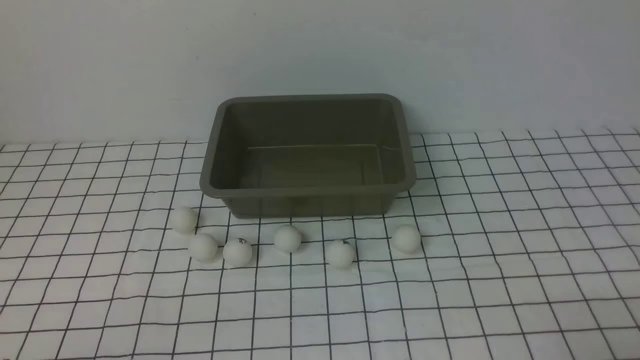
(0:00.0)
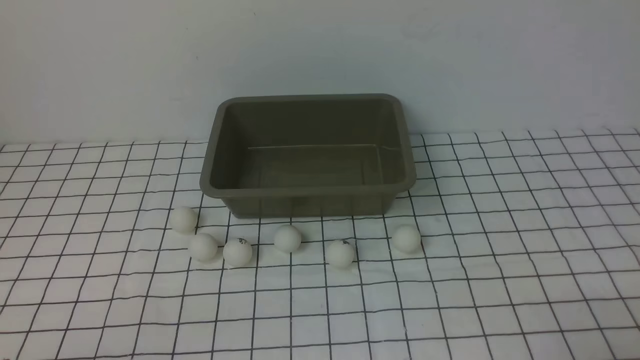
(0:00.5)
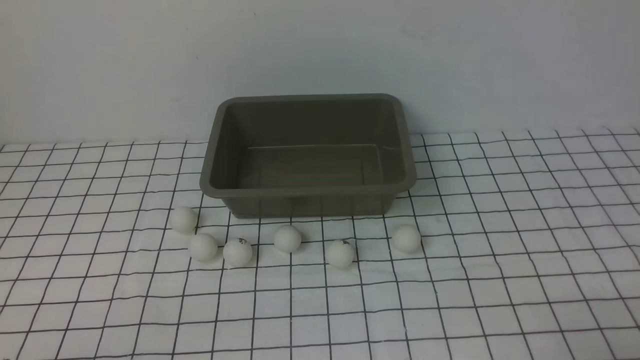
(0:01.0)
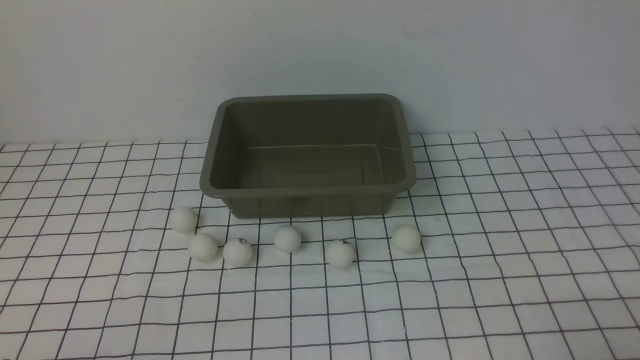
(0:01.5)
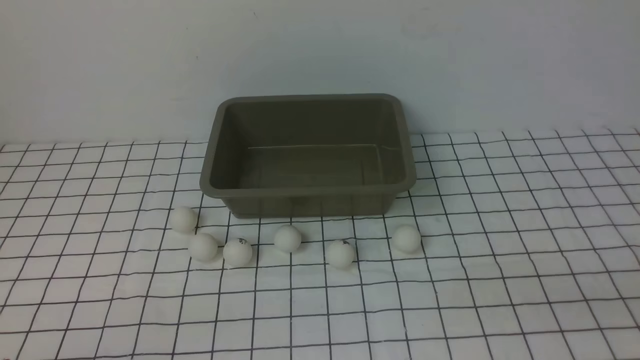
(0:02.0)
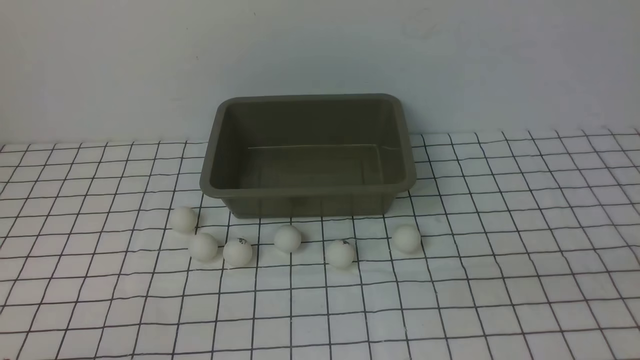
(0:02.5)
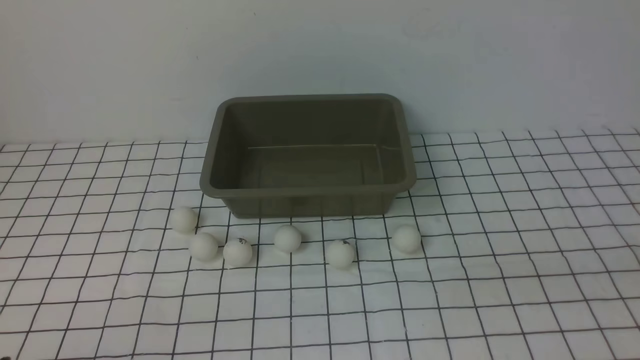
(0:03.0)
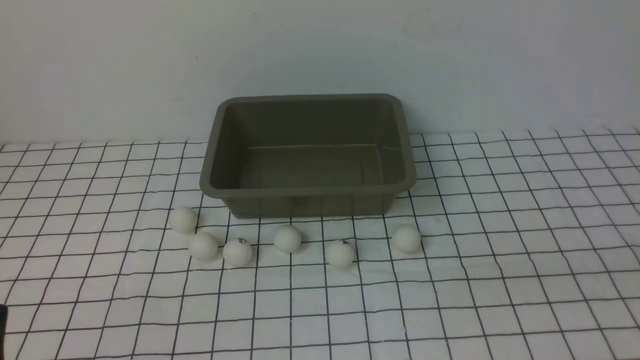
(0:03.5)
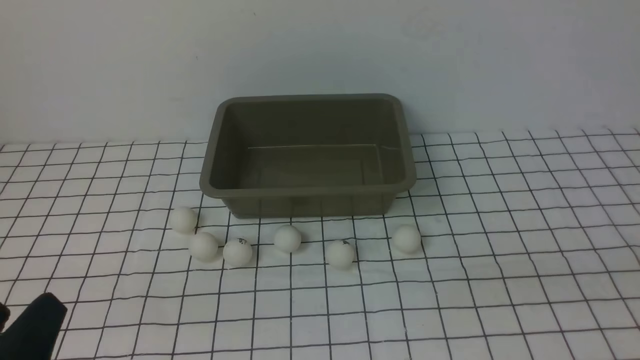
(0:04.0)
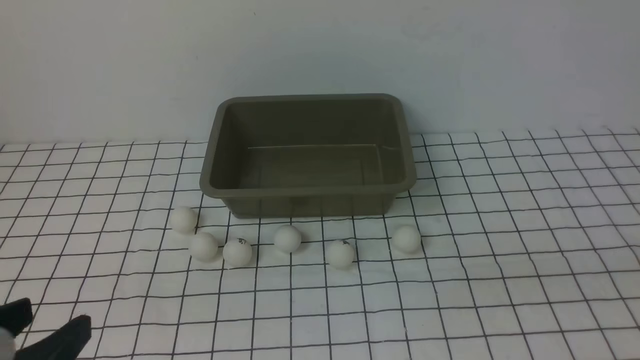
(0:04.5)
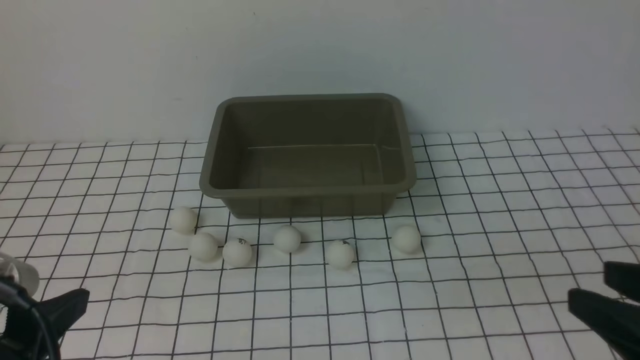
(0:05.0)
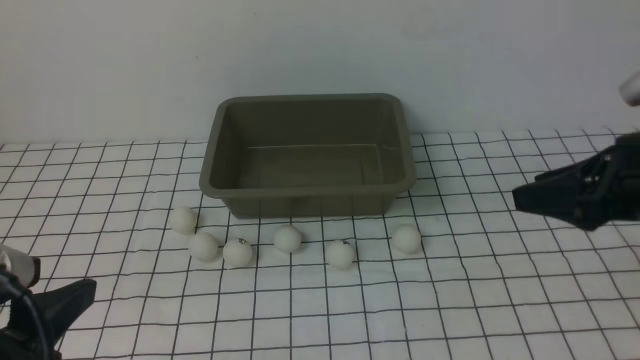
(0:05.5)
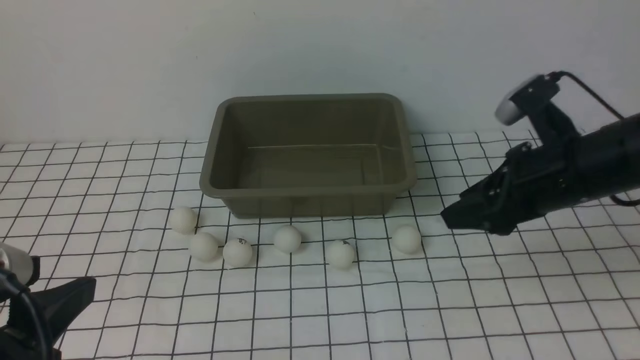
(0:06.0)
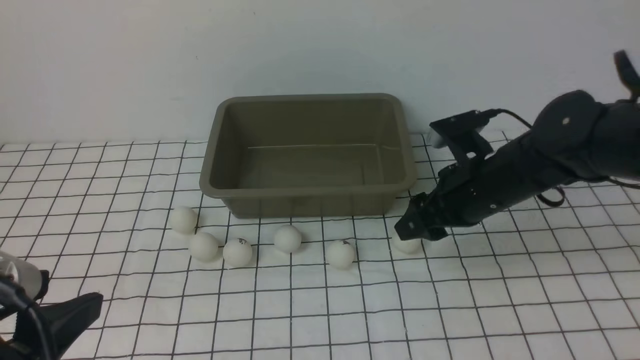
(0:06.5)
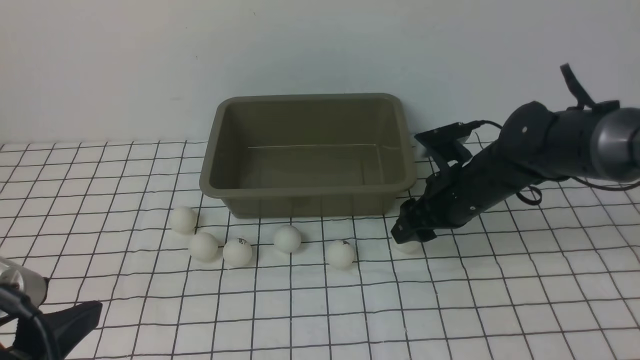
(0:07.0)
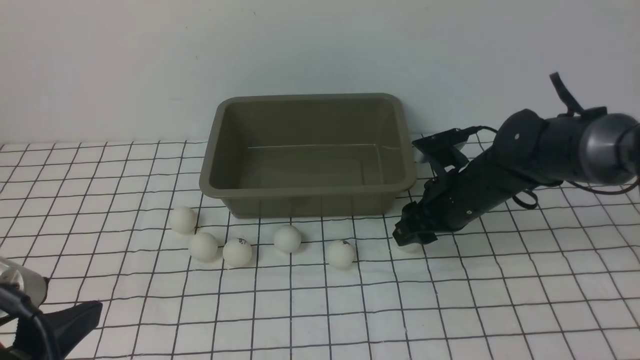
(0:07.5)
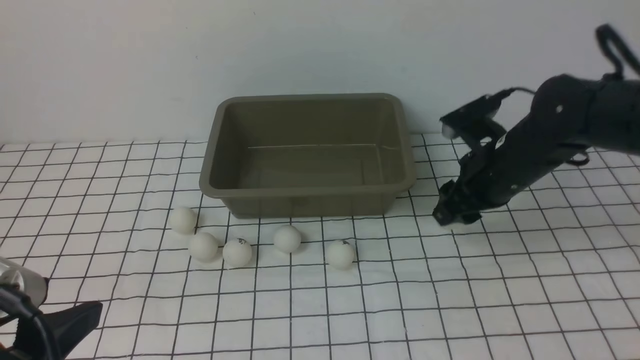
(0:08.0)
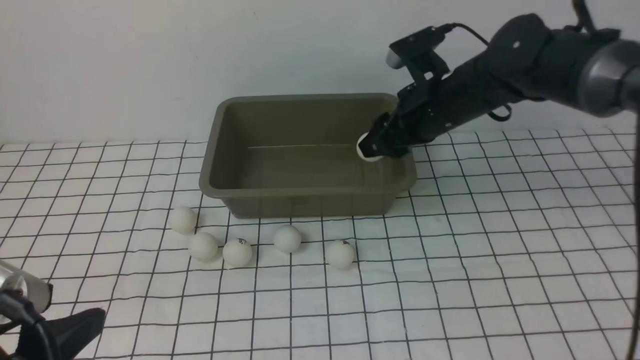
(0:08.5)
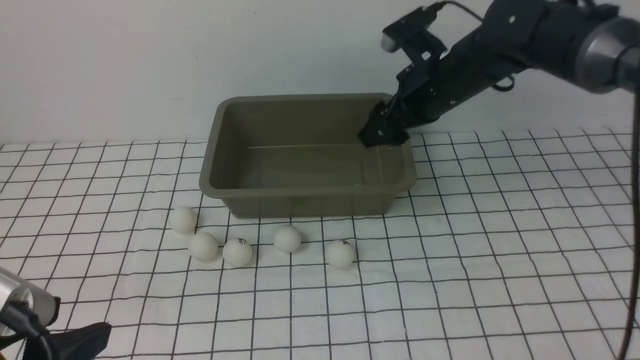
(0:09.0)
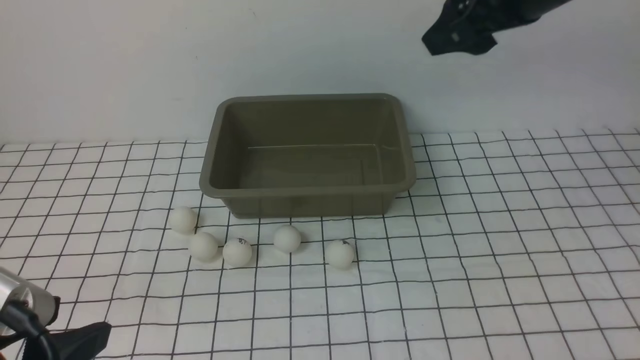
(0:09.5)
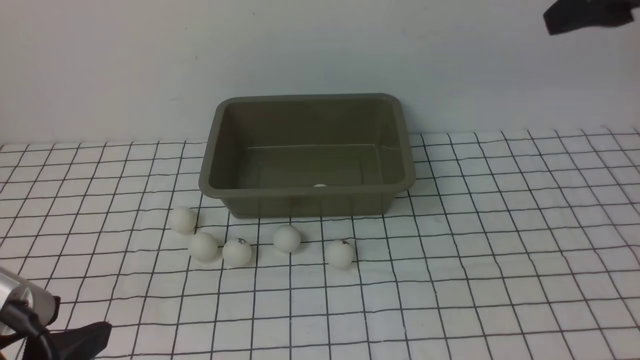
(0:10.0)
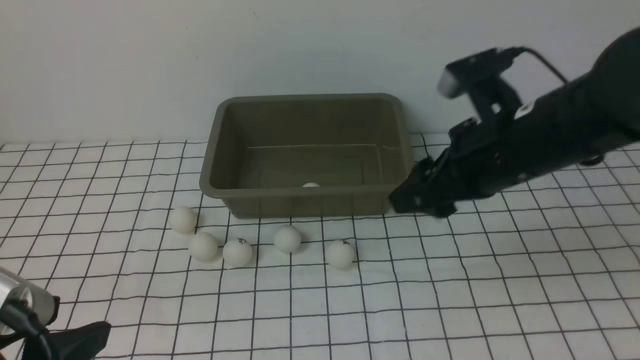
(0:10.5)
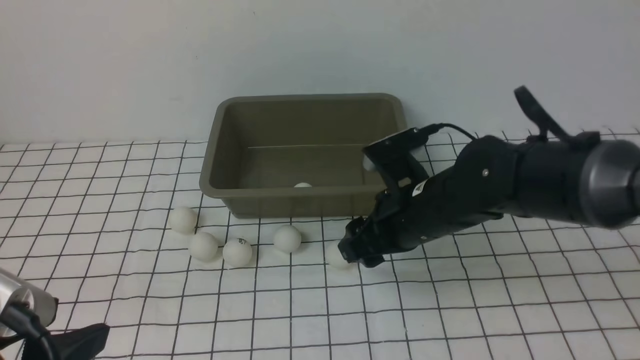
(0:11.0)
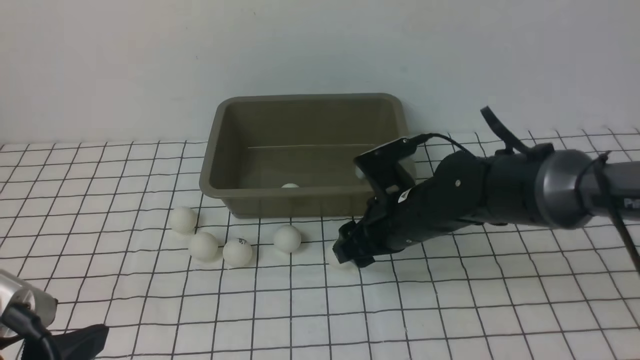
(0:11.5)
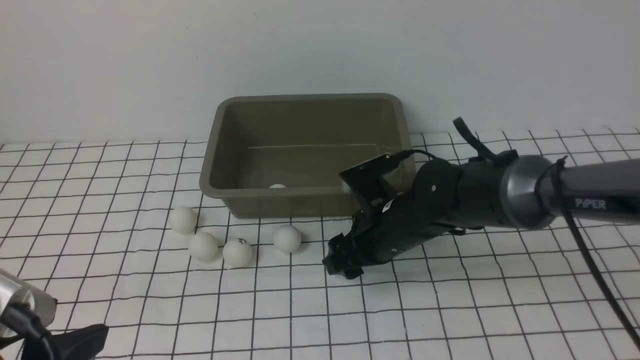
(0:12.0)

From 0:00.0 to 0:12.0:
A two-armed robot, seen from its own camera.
Step, from 0:00.0 to 0:08.0: use the right arm to clamp the table tennis ball closest to it.
Step, from 0:08.5 to 0:09.0: use the right arm to put the table tennis ball into the box.
From 0:02.0 to 0:04.0: The left gripper travels upward by about 5 cm.
From 0:04.0 to 0:06.0: The left gripper shifts about 5 cm upward, while the right gripper travels forward by roughly 25 cm.
From 0:06.0 to 0:08.0: The right gripper heads downward, forward and to the left, covering approximately 10 cm, and opens and closes again.
From 0:08.0 to 0:10.0: The right gripper moves upward, approximately 20 cm, and opens its fingers.
From 0:10.0 to 0:12.0: The right gripper travels downward and to the left by some 30 cm.

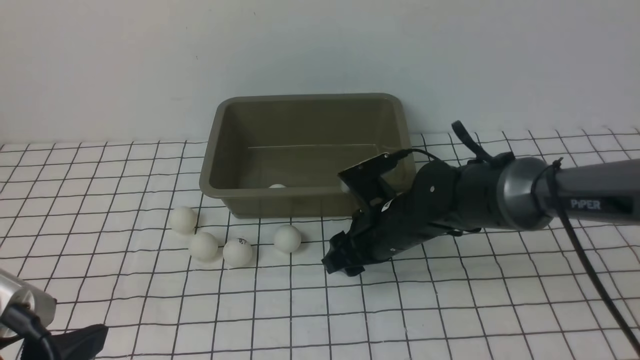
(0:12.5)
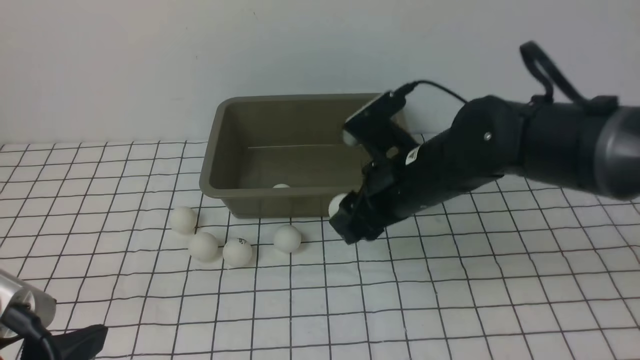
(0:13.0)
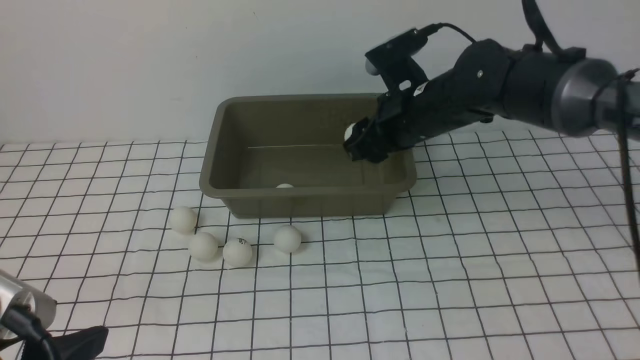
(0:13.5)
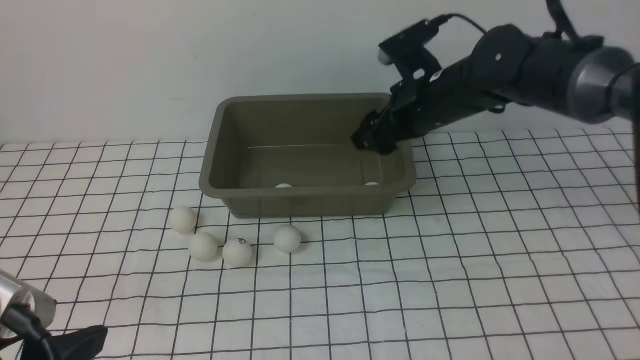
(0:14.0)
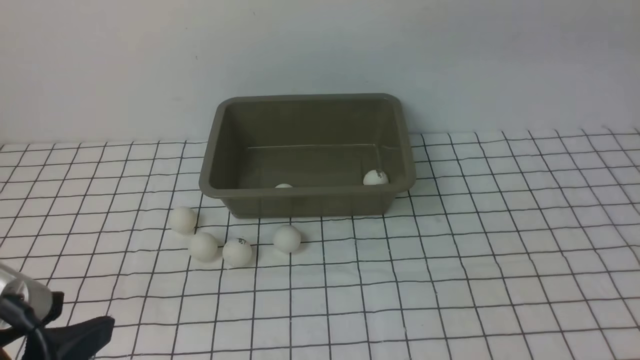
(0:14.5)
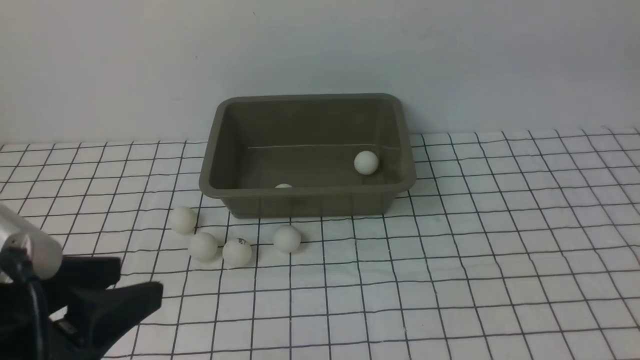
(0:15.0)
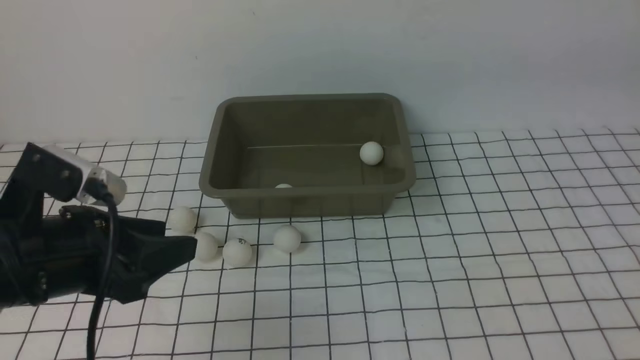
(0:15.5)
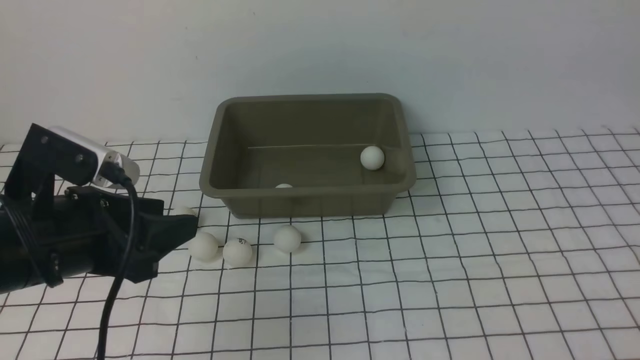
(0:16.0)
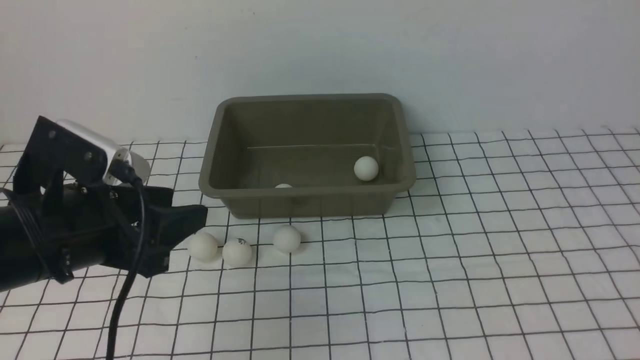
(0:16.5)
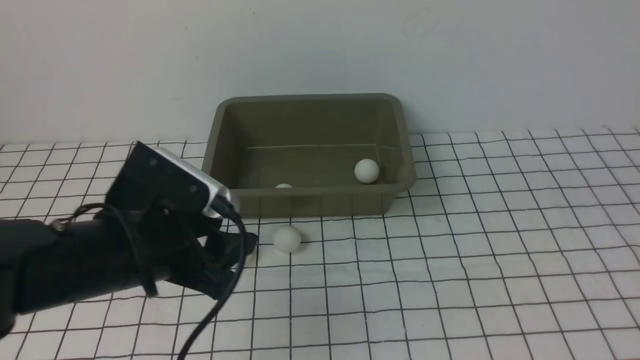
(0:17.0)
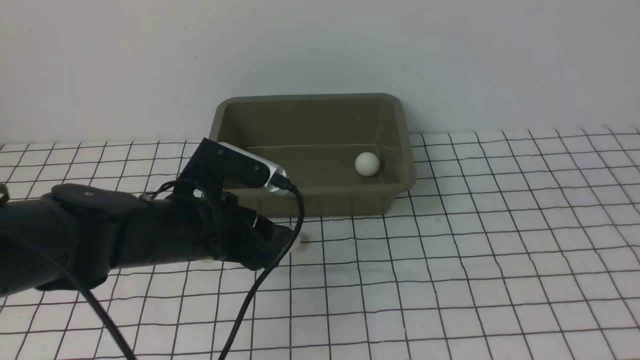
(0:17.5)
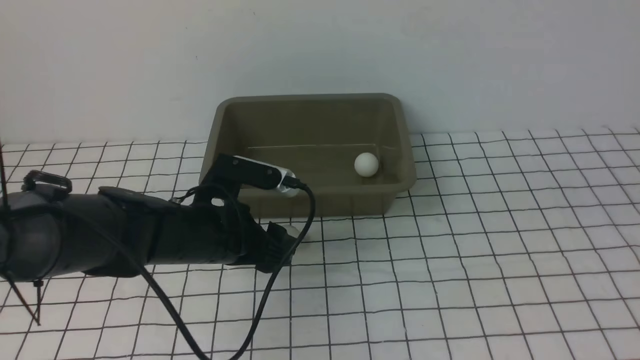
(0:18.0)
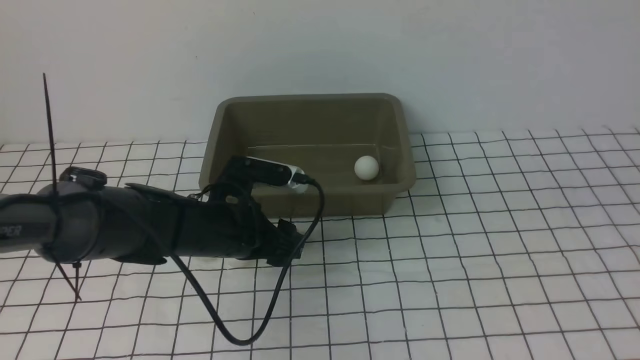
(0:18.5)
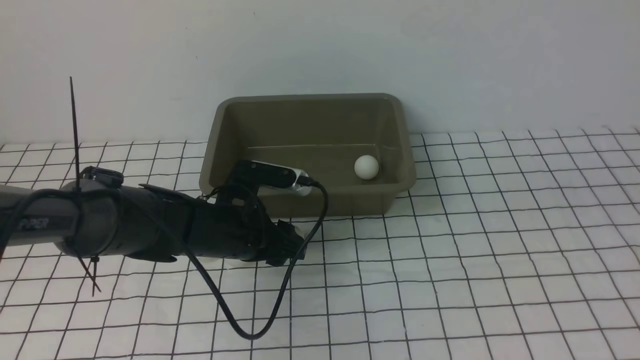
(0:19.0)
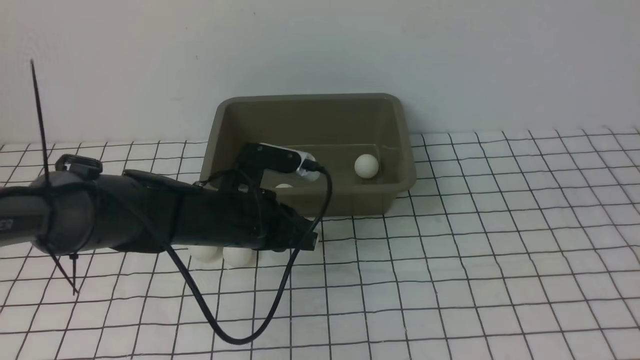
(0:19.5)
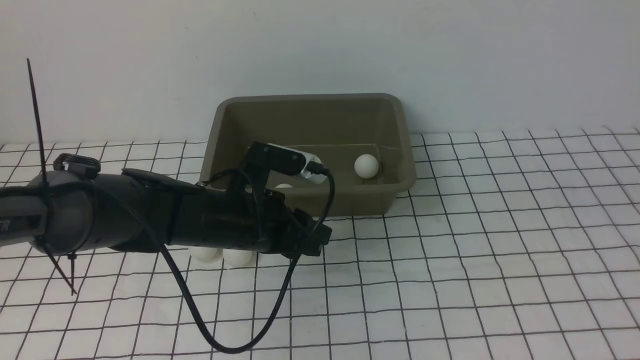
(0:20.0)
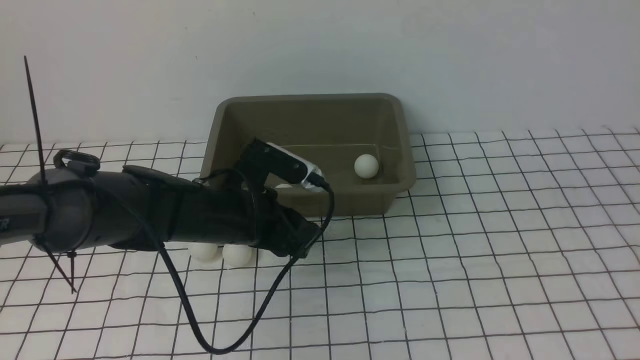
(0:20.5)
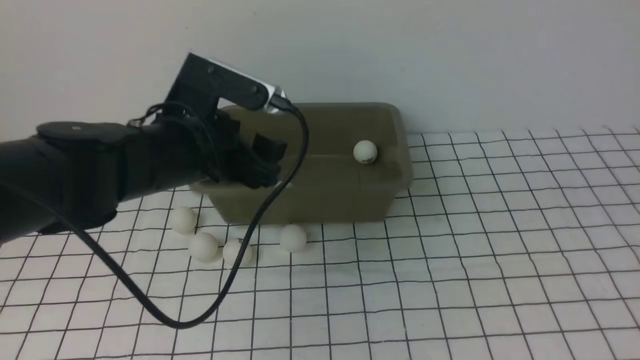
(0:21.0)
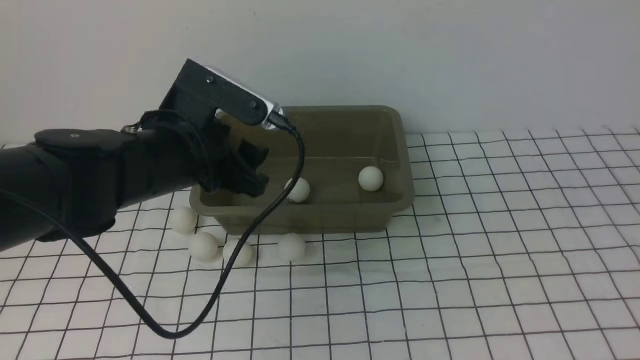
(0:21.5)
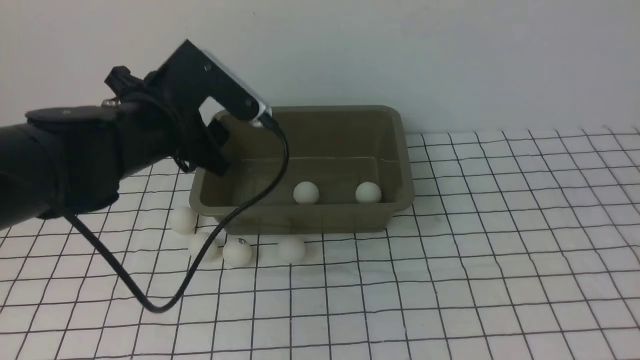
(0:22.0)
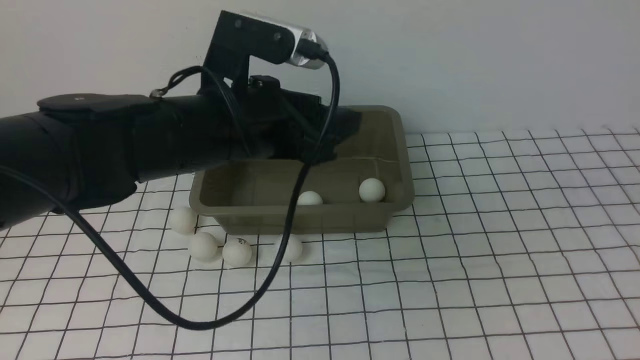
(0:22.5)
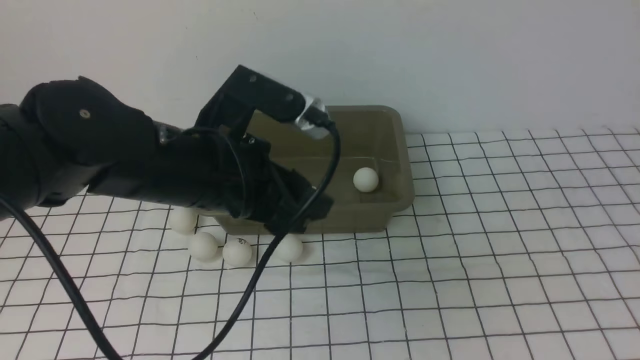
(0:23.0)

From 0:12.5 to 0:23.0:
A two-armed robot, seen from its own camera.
Step, from 0:13.0 to 0:14.0: use the right arm to put the table tennis ball into the box.
From 0:12.5 to 0:14.5: The right gripper shifts some 30 cm upward and to the right, and opens up.
From 0:14.5 to 0:16.5: The left gripper moves forward, roughly 10 cm. Meanwhile the right gripper goes some 25 cm backward.
From 0:16.5 to 0:19.0: The right gripper moves downward, some 5 cm. Meanwhile the left gripper travels downward, forward and to the right by approximately 20 cm, and closes up.
From 0:19.0 to 0:21.0: The left gripper travels upward by some 15 cm, and opens.
From 0:21.0 to 0:23.0: The left gripper ends up about 5 cm from where it was.
